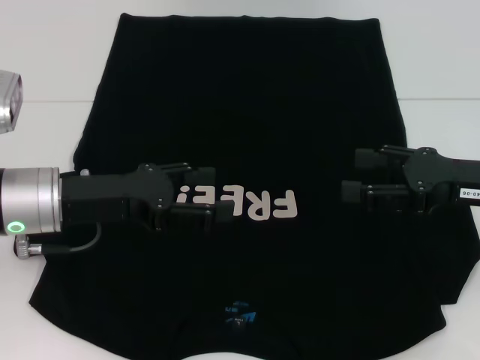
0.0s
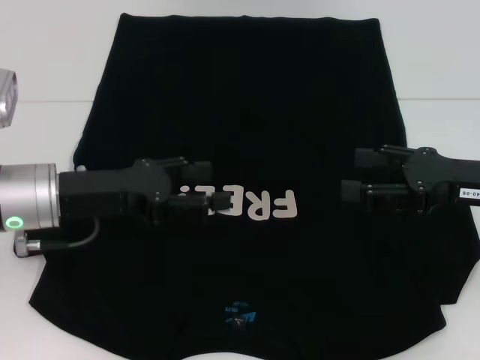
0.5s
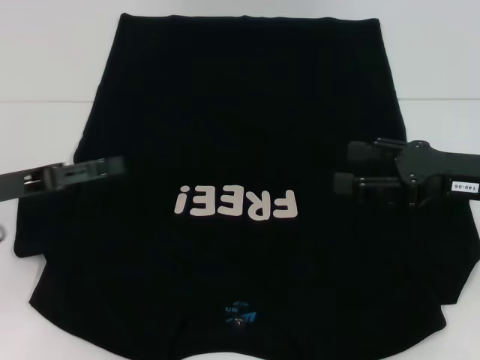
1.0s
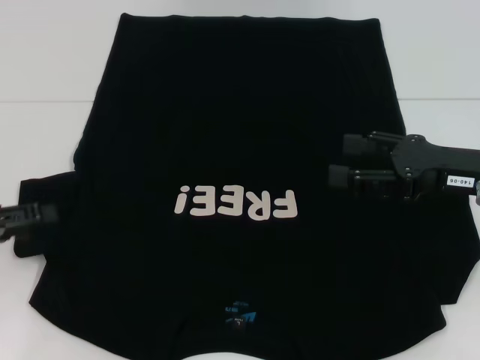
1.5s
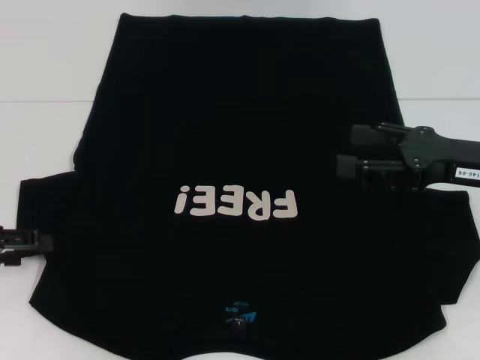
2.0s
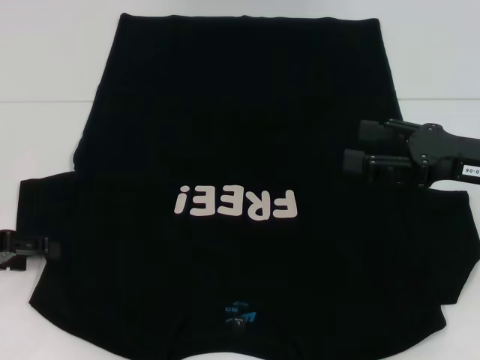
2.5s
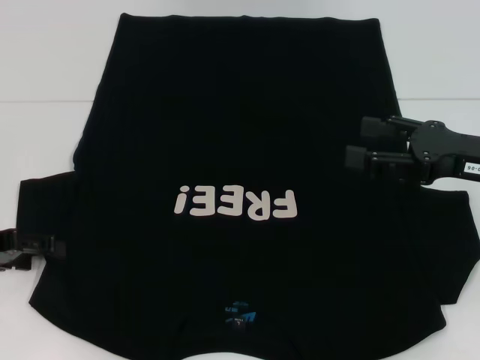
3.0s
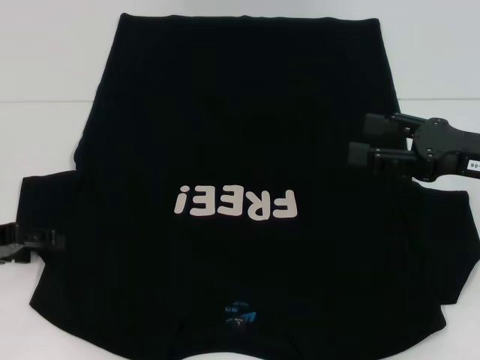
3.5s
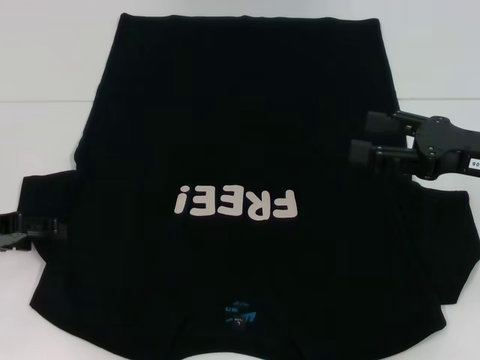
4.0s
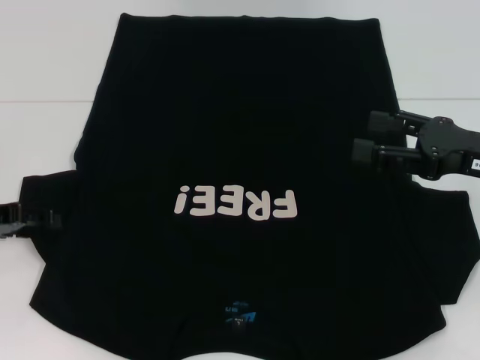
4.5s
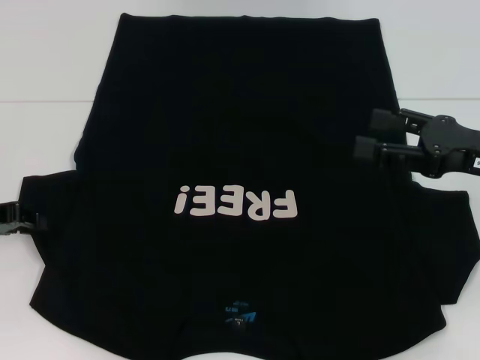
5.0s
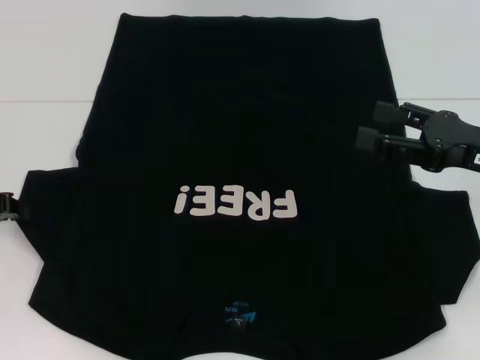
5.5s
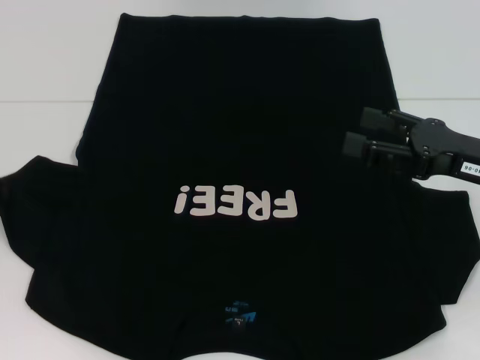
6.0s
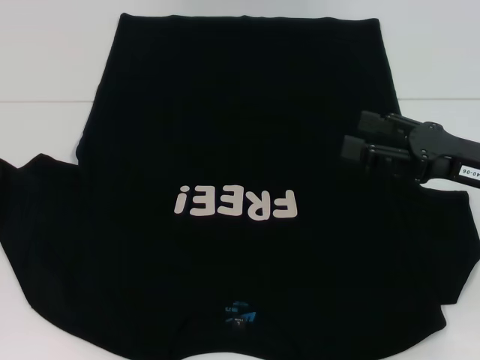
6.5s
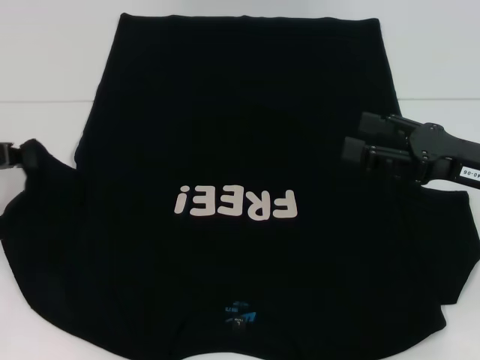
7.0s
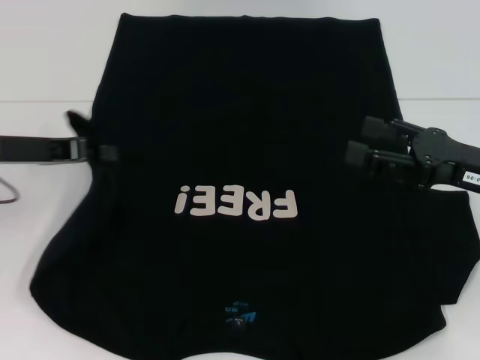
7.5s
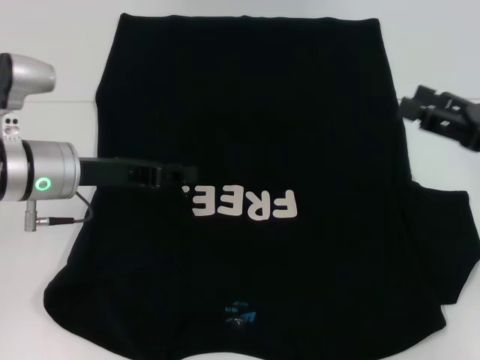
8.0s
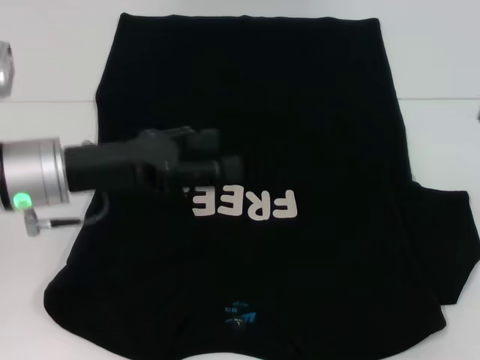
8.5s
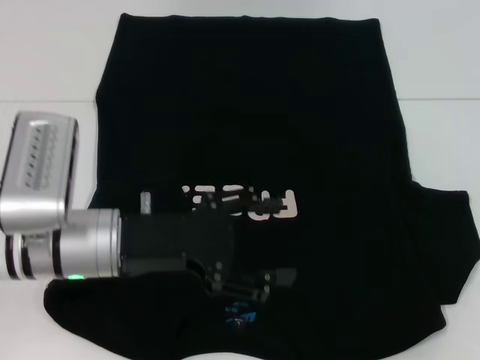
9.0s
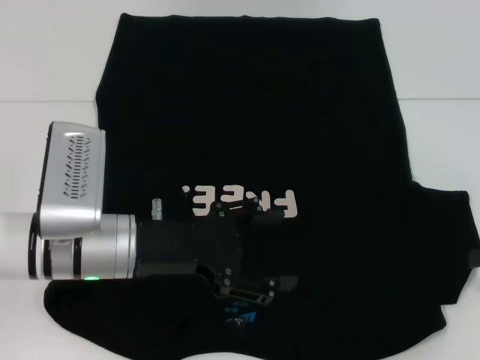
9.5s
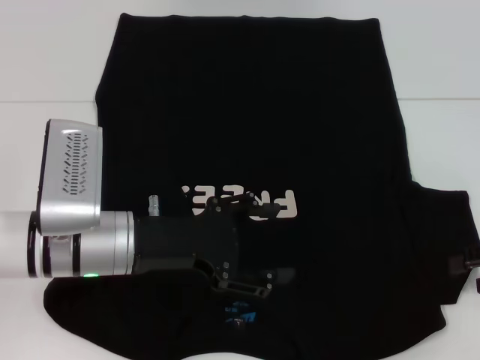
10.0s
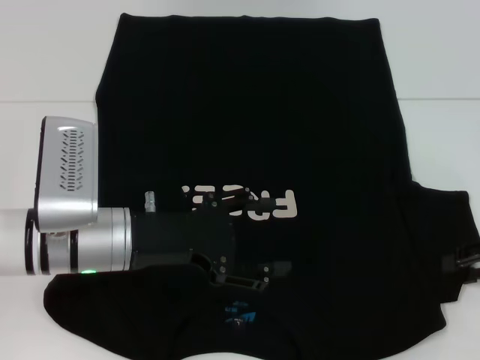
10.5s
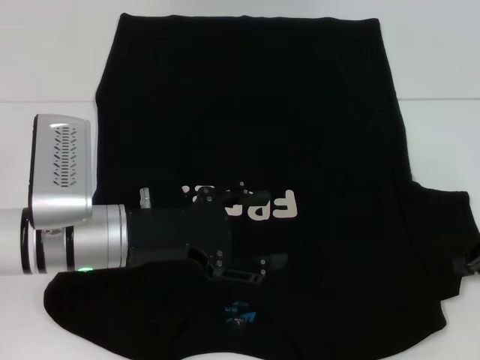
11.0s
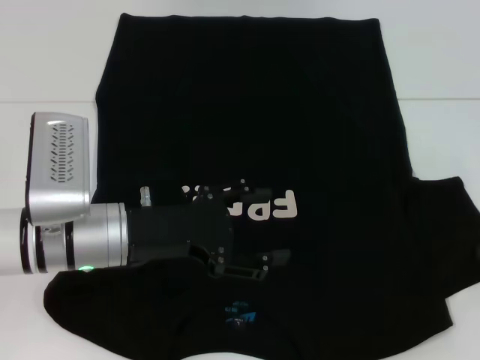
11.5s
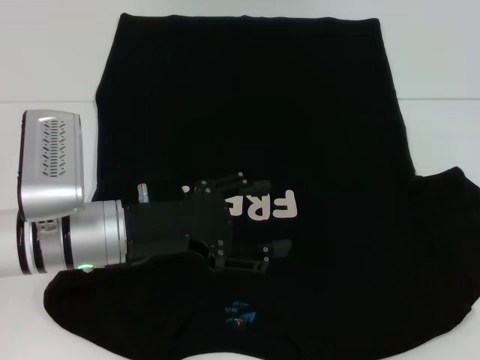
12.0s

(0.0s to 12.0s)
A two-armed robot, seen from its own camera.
Step, 0.0s - 8.0s: Fold the bottom left sleeve with your left hand.
0.0s - 2.0s: The left gripper shifts roughly 15 cm to the left.
2.0s - 4.0s: The grippers move only a little.
4.0s - 6.0s: The left gripper closes its fingers.
6.0s - 8.0s: The left gripper travels to the right by about 15 cm.
8.0s - 10.0s: The left gripper shifts about 10 cm backward and to the right, and opens; the right gripper is displaced to the right by about 5 cm.
10.0s - 12.0s: The right gripper closes.

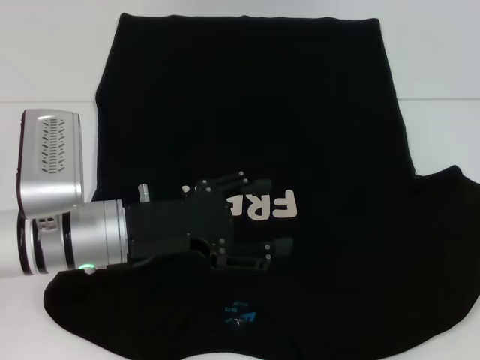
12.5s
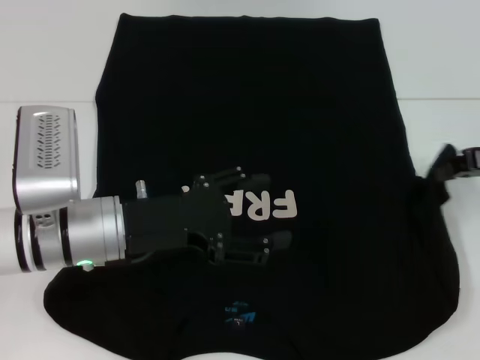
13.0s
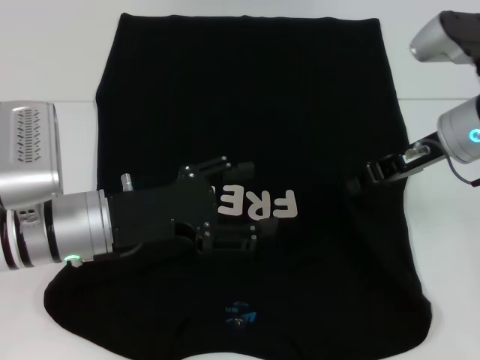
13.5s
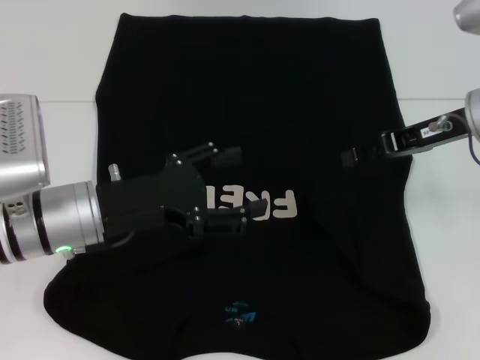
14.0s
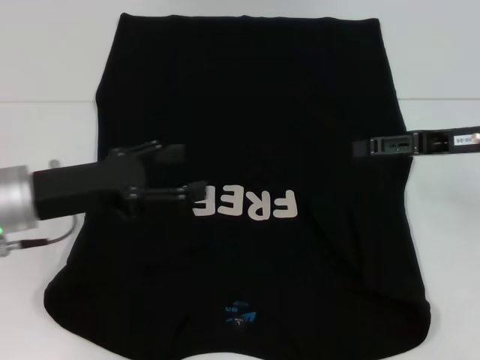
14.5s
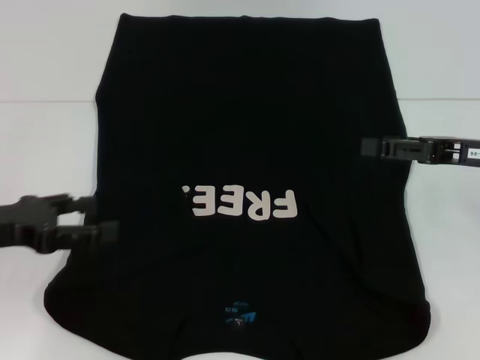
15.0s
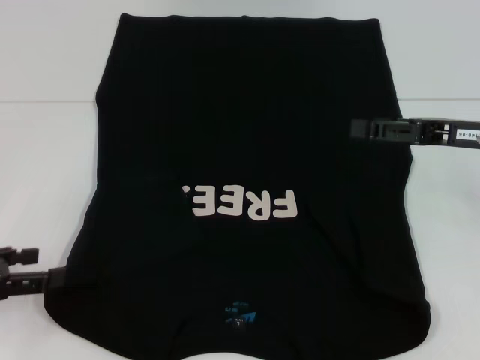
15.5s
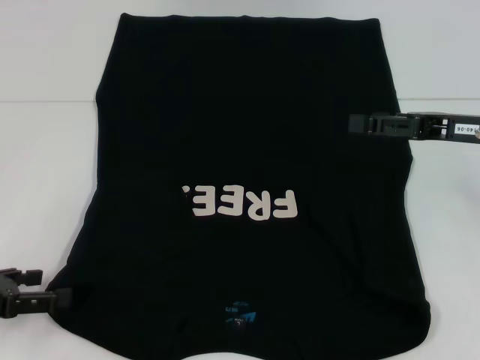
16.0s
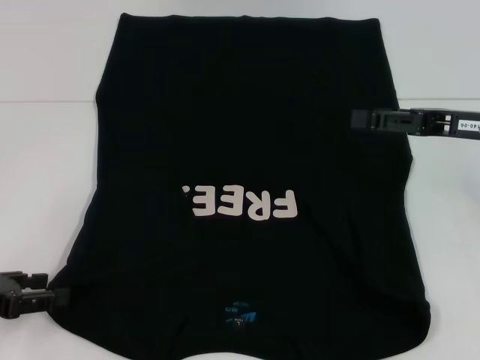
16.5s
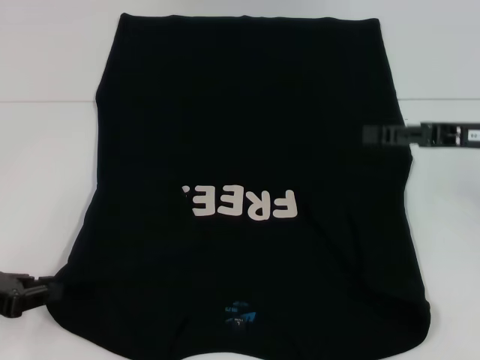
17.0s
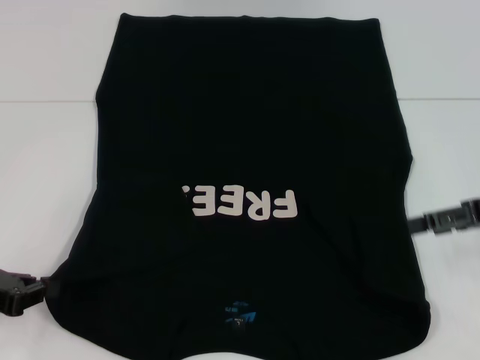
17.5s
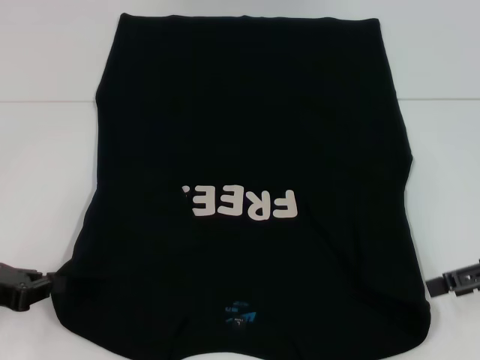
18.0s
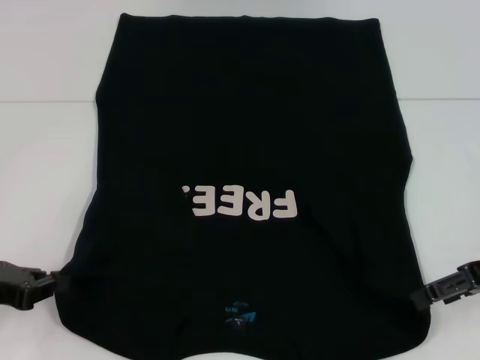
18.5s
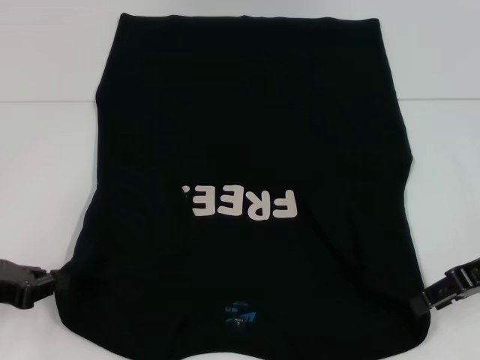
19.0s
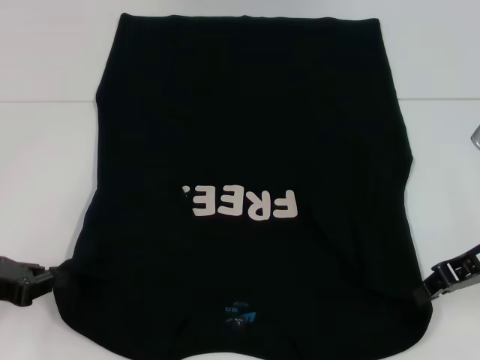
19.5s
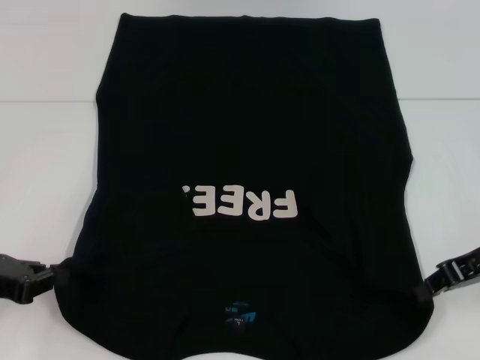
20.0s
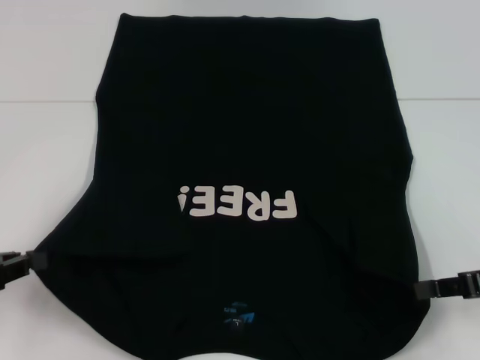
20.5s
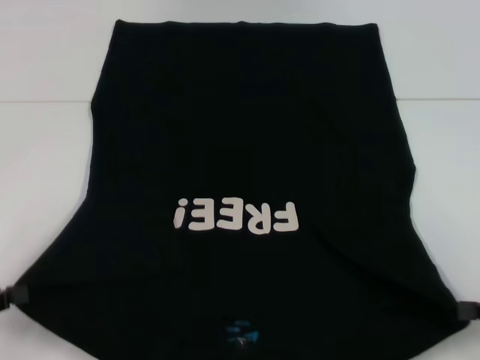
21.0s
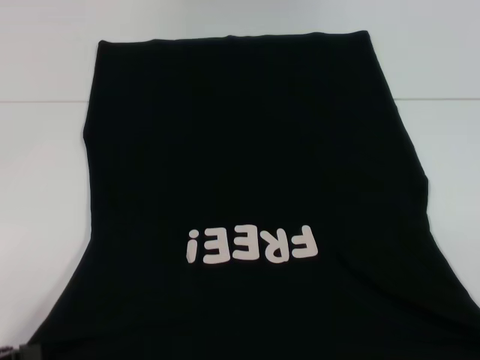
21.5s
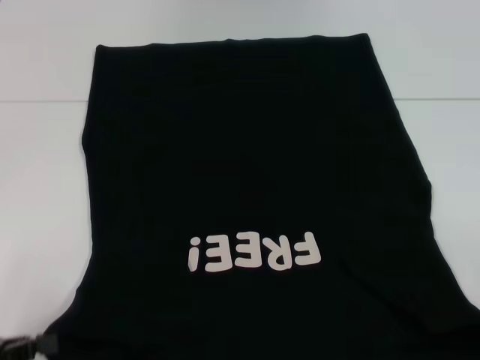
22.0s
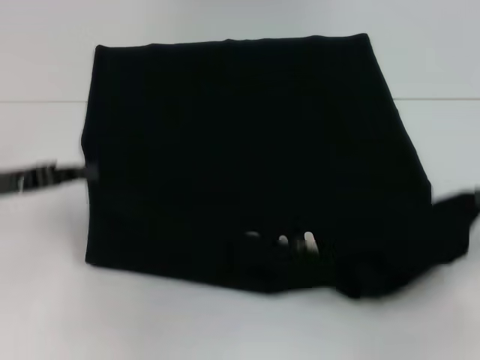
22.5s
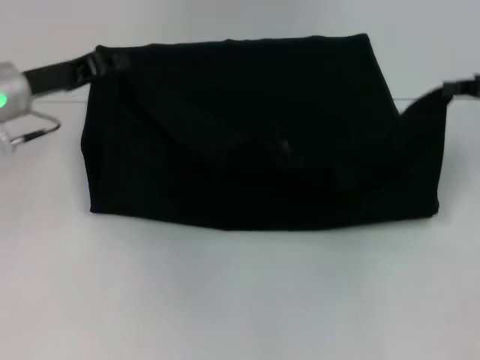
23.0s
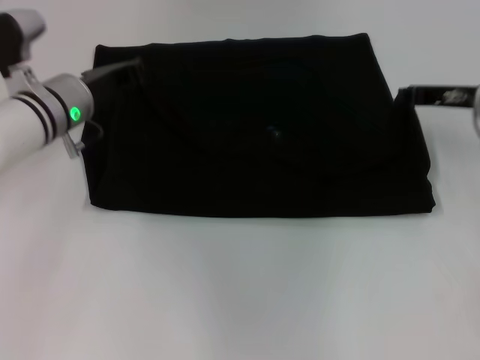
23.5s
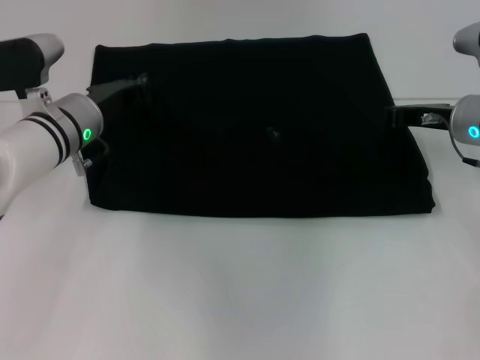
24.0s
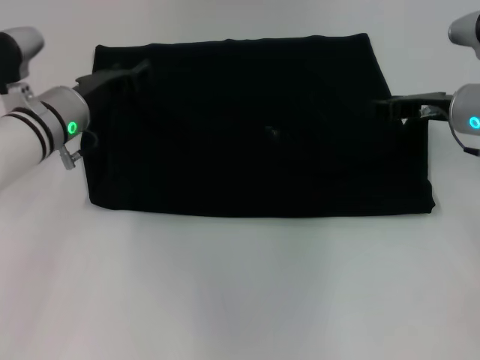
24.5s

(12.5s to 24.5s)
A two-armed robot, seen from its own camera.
Step, 14.0s - 17.0s: Grab the bottom left corner with your left hand.
Step, 17.5s - 20.0s: Grab the bottom right corner with your right hand.
12.5s - 14.5s: Both grippers move to the left, roughly 10 cm. The right gripper opens.
14.5s - 16.5s: The left gripper is displaced to the left, backward and downward by some 15 cm.
16.5s - 18.5s: The left gripper closes up. Meanwhile the right gripper changes place by roughly 5 cm.
18.5s - 20.5s: The right gripper closes up.
20.5s - 22.5s: The right gripper heads to the right, covering approximately 5 cm, and travels backward and back again, roughly 10 cm each way. Meanwhile the left gripper shifts roughly 10 cm forward.
22.5s - 24.5s: The right gripper travels to the left and forward by some 20 cm. Meanwhile the left gripper moves to the right and forward, roughly 15 cm, and opens its fingers.

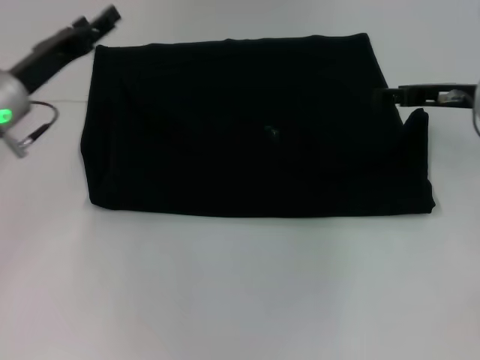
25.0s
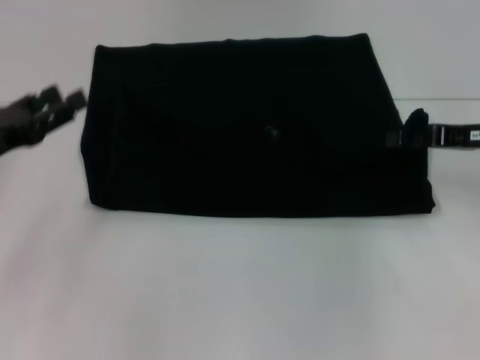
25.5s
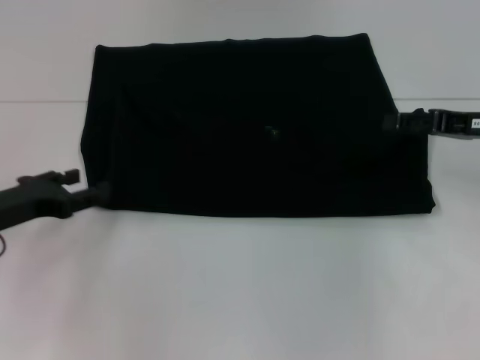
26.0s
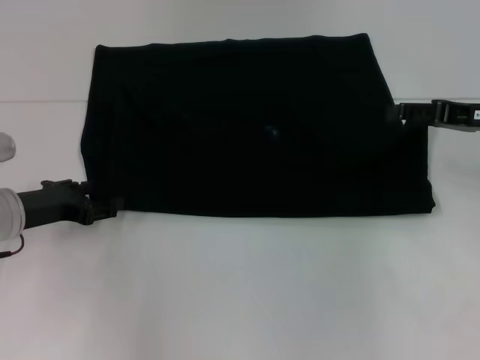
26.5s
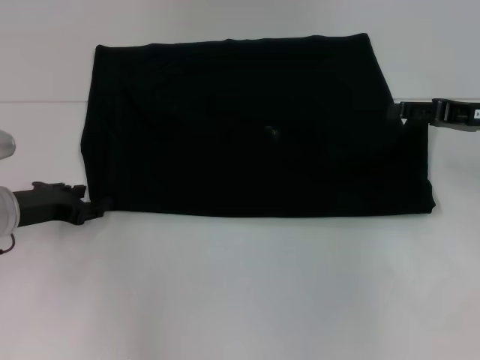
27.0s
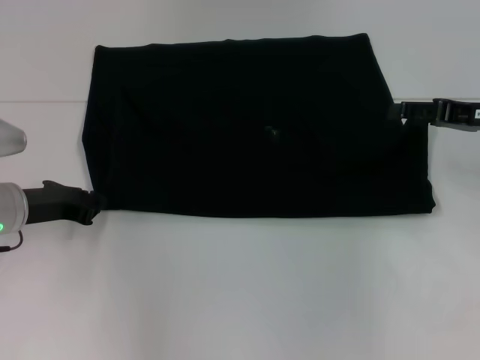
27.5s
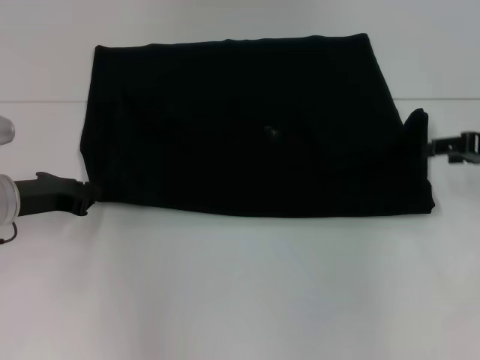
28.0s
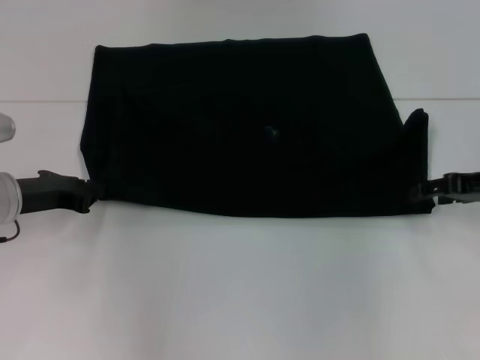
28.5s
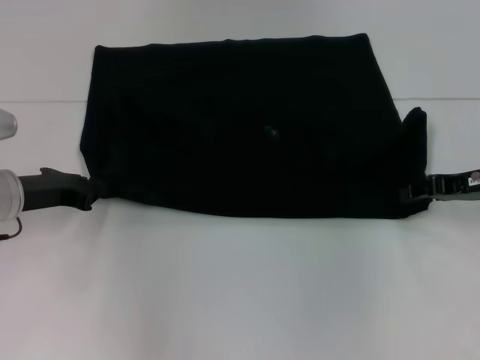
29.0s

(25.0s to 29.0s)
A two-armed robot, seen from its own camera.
25.0s - 27.0s: The left gripper goes roughly 5 cm downward. Meanwhile the right gripper shifts by about 5 cm.
27.0s - 29.0s: The left gripper closes.
